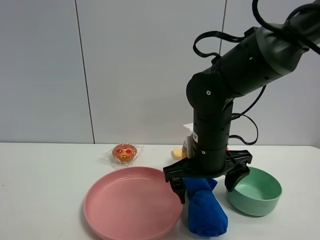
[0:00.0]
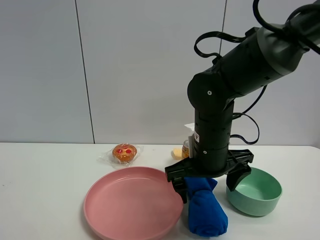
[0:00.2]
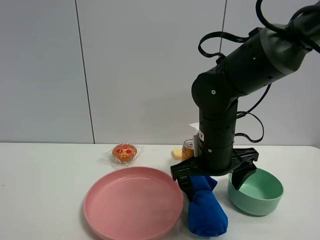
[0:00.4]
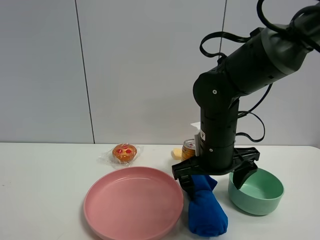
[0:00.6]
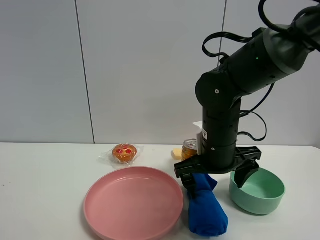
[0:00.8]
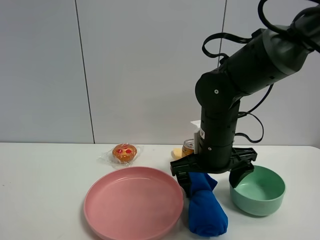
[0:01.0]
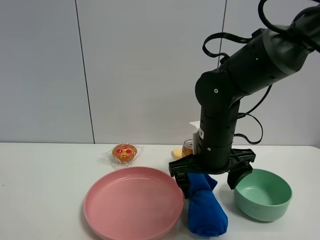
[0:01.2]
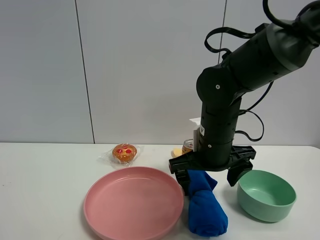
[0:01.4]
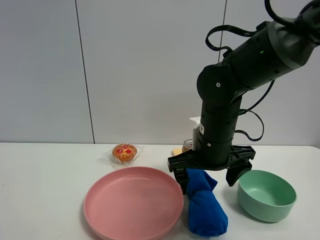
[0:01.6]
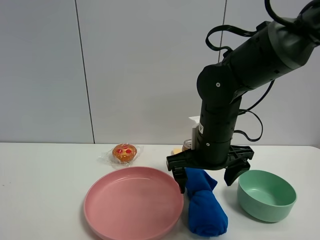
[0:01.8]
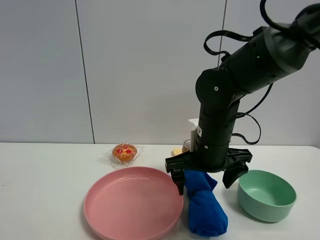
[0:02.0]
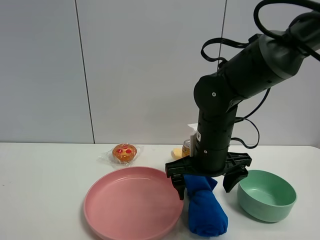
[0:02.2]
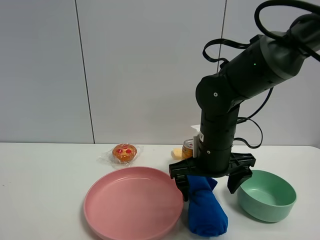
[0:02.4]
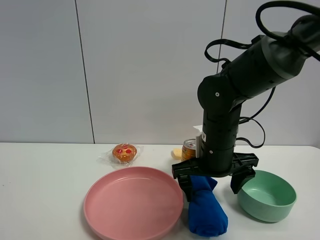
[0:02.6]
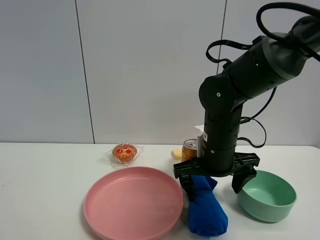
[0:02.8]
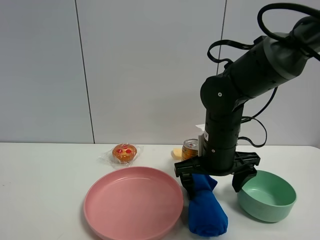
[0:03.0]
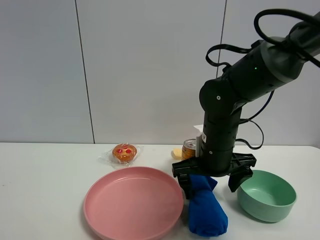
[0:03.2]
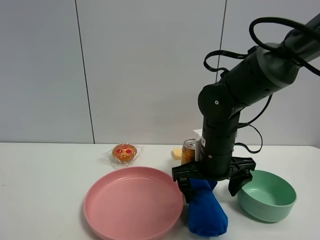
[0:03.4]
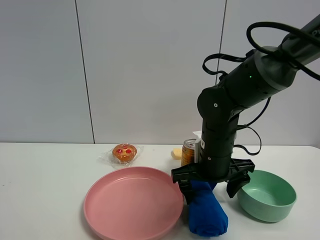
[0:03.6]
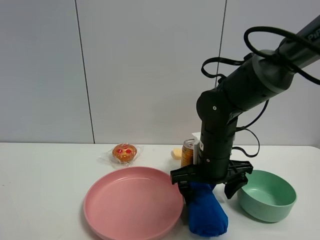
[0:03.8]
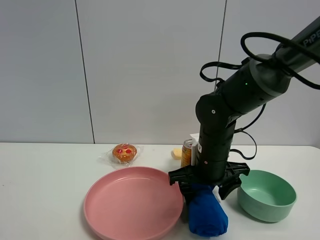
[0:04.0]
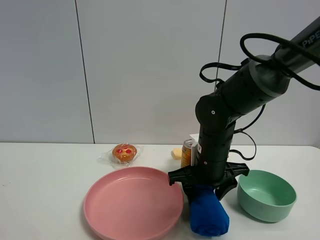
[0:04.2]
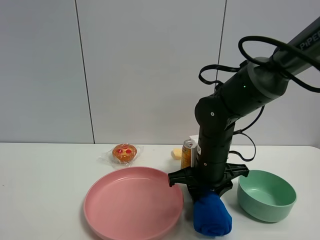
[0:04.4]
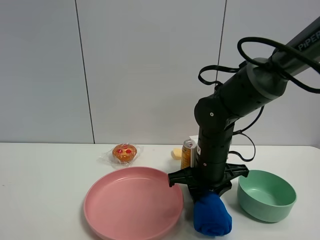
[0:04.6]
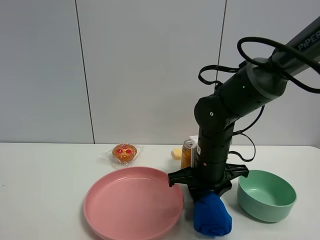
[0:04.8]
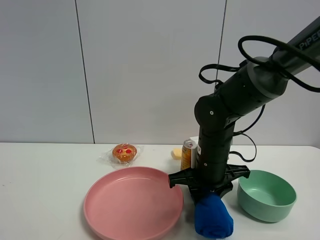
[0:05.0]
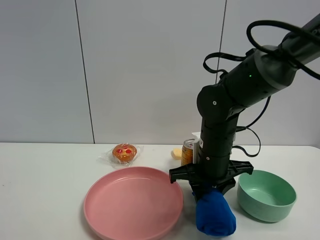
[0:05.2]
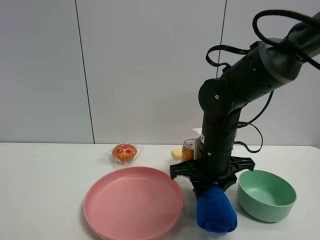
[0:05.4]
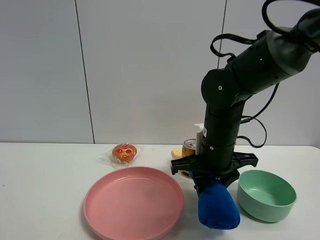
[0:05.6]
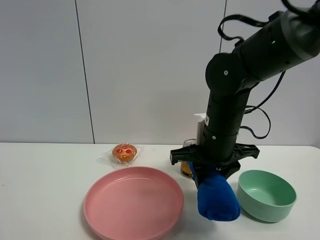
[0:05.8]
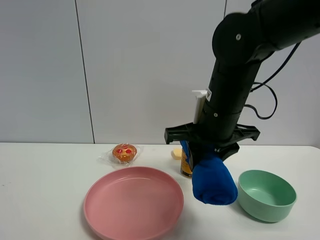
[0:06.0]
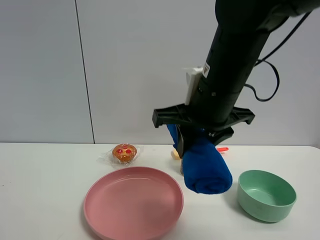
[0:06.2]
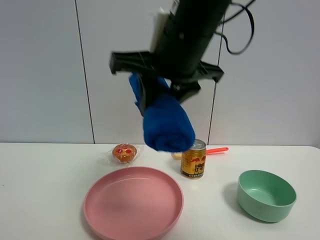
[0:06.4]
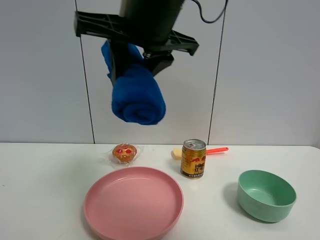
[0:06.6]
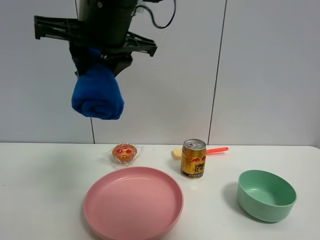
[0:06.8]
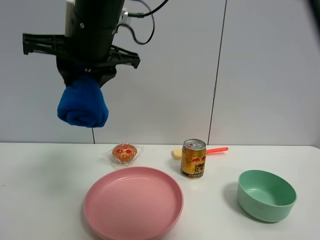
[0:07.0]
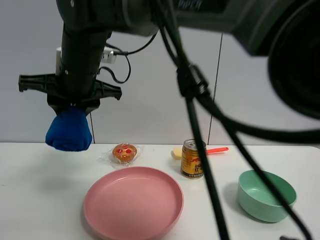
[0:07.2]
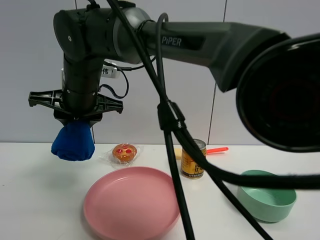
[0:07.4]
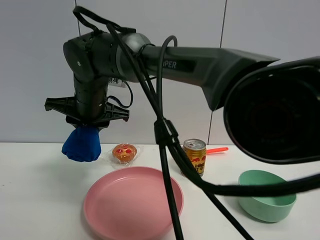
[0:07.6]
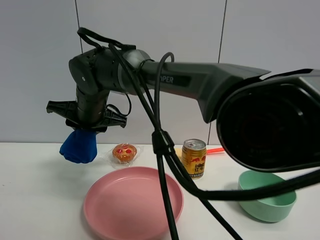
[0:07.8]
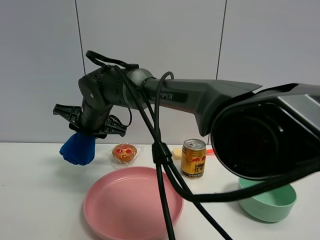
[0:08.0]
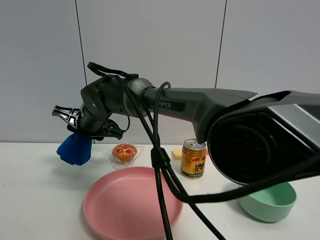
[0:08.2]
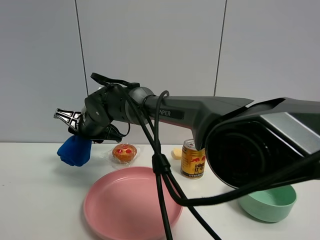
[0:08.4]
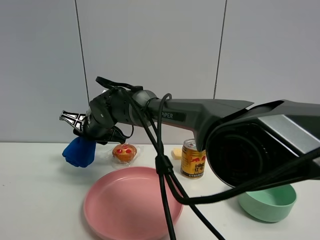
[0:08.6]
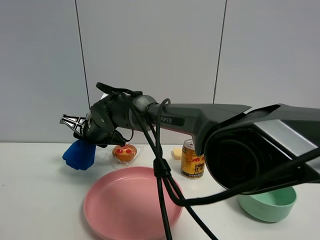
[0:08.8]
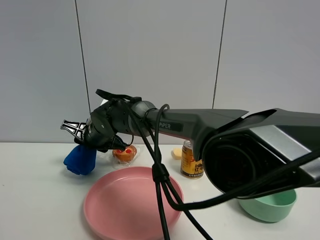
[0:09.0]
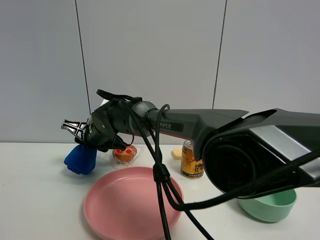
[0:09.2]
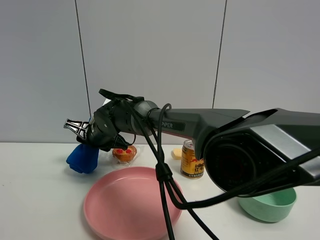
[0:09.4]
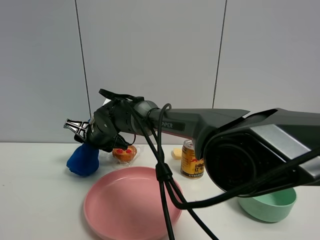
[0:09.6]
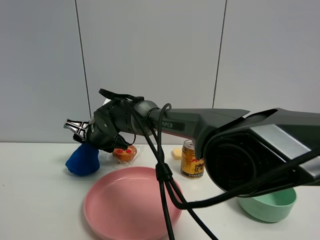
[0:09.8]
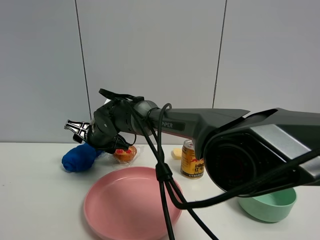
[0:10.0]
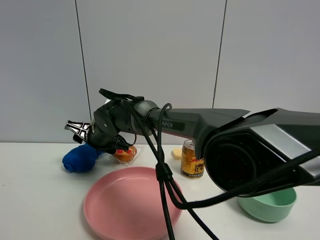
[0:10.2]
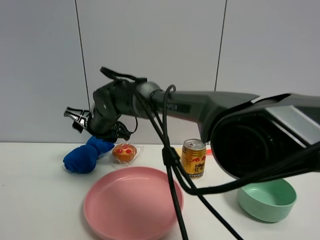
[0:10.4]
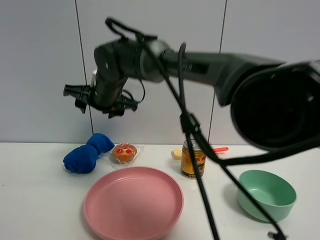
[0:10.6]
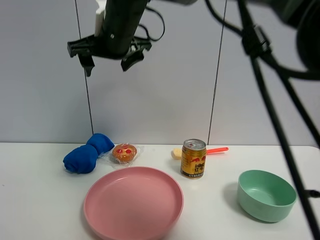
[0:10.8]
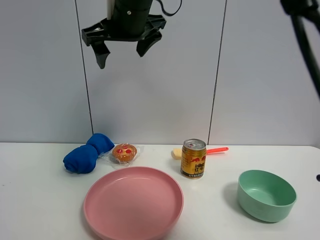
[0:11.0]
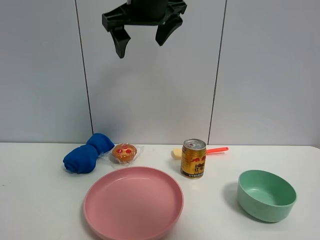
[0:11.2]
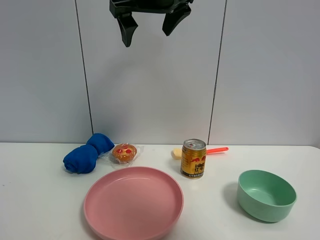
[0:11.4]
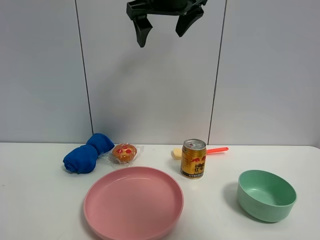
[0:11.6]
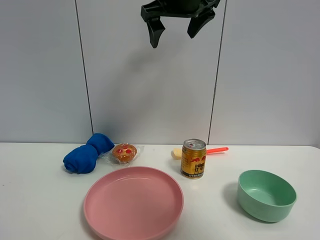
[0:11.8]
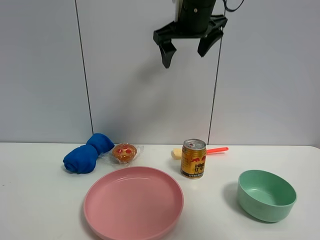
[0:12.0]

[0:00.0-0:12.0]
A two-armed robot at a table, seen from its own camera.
Task of the whole recording: the gripper move the object.
Step, 0.0 to 4.4 s: Grasp the blue towel with the right gripper.
Step, 4.6 to 9.8 s: Place the blue towel on the table with the right gripper.
0.0 to 3.0 s: The grippers stay close to where they were, moving slightly.
3.0 to 4.4 s: The right gripper closes.
4.4 to 6.0 s: The right gripper travels upward by about 10 cm.
6.0 to 7.6 s: The right gripper heads to the left, covering roughly 20 cm.
7.6 to 9.0 s: The right gripper shifts about 10 cm downward.
9.0 to 10.4 s: The right gripper goes approximately 5 cm upward, and opens up.
10.4 to 12.0 s: The right gripper shifts about 25 cm upward and to the right, and opens its fingers.

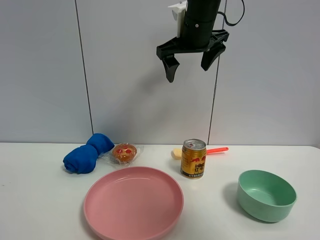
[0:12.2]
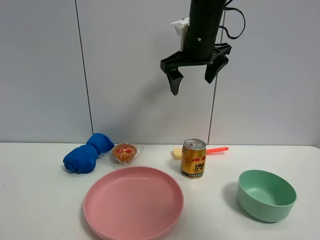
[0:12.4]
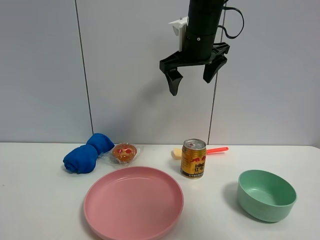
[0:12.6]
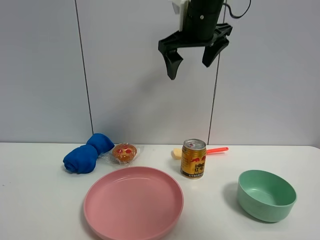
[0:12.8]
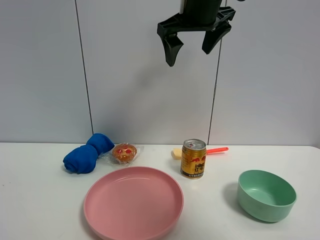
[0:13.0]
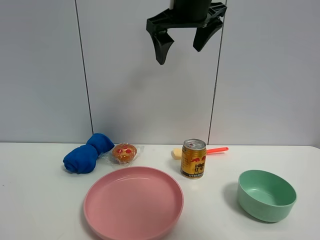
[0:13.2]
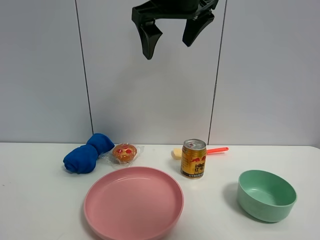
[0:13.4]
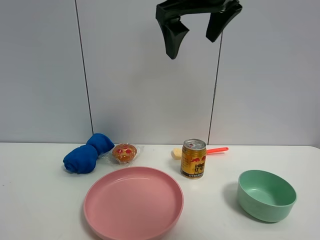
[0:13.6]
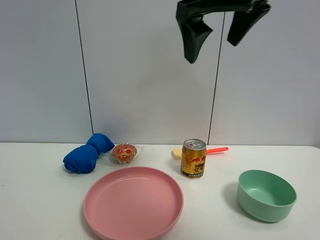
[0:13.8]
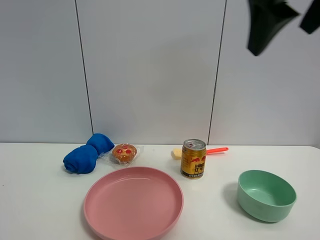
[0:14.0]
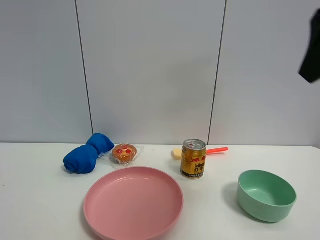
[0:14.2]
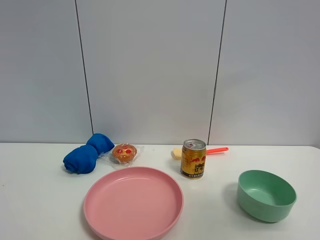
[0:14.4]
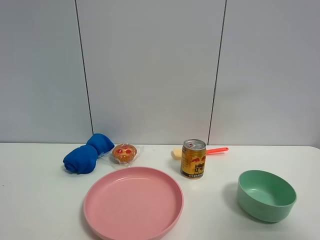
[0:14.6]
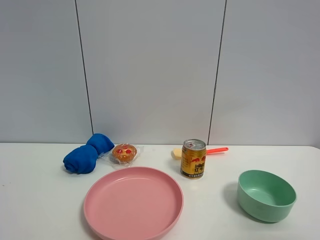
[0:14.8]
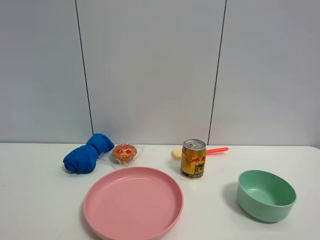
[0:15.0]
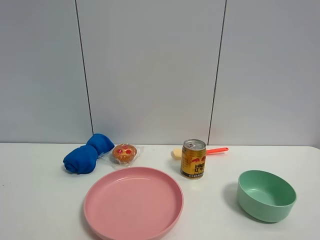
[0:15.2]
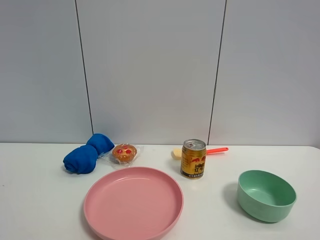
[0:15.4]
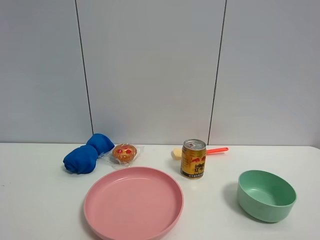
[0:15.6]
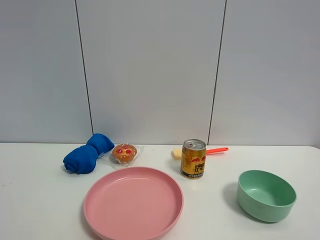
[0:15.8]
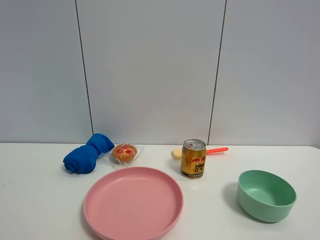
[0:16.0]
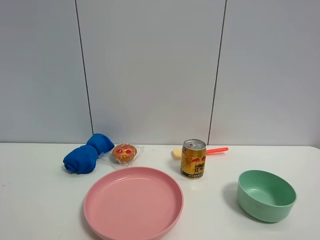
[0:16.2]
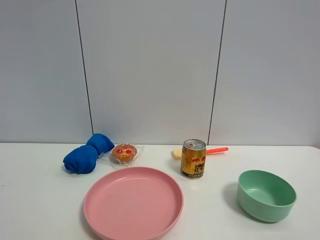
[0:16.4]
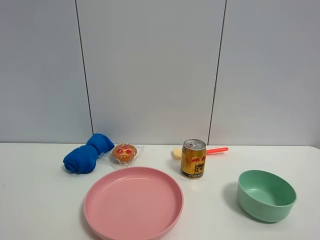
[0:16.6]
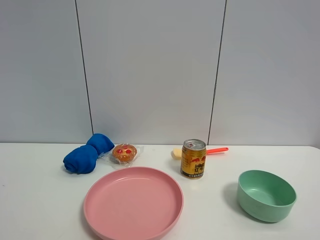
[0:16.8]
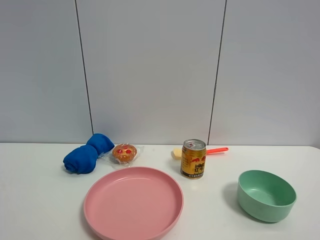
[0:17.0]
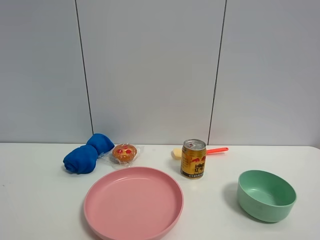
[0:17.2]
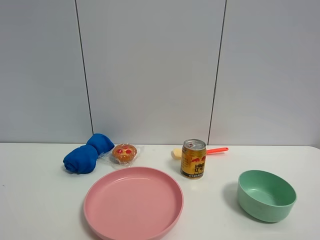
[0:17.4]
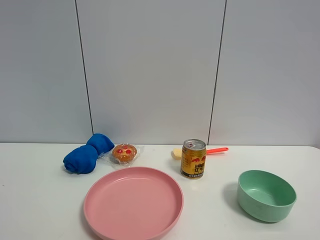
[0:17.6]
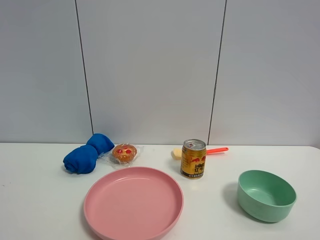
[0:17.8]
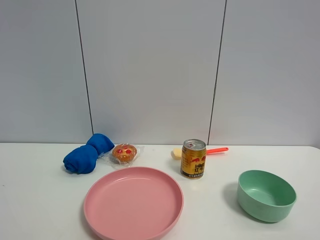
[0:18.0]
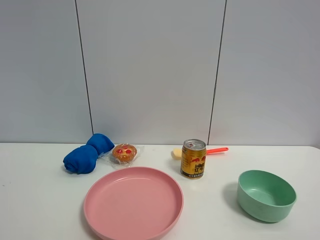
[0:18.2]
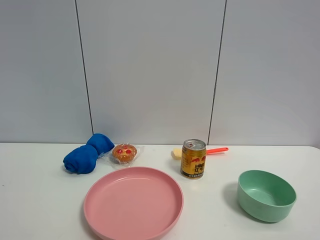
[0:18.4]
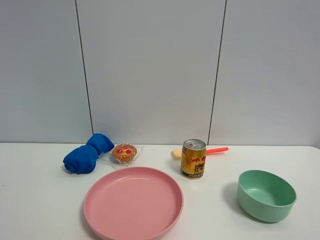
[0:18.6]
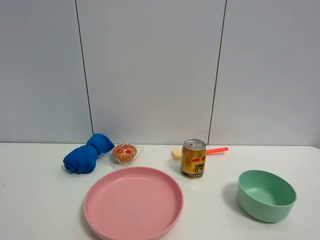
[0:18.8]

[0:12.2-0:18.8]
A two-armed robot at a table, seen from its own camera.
Task of the whole recording: the gripper move the object.
12.2 to 13.8 s: The right gripper goes some 15 cm backward and upward.
13.8 to 15.4 s: The right gripper travels backward, to the right and downward by some 35 cm.

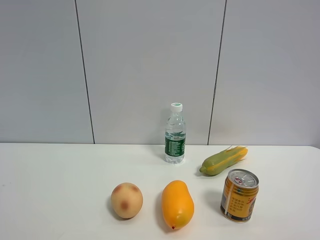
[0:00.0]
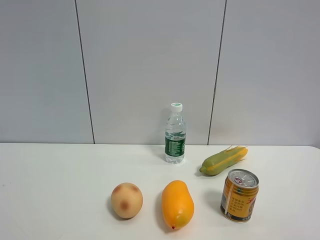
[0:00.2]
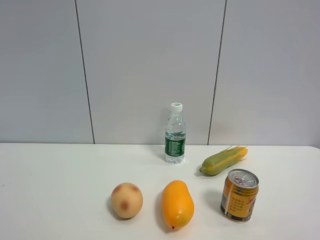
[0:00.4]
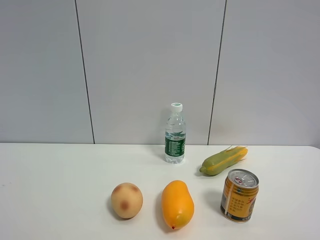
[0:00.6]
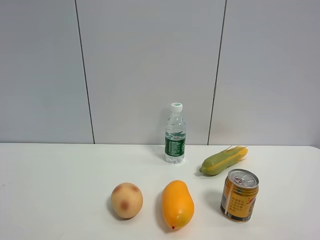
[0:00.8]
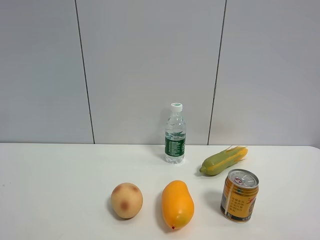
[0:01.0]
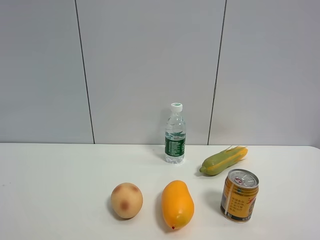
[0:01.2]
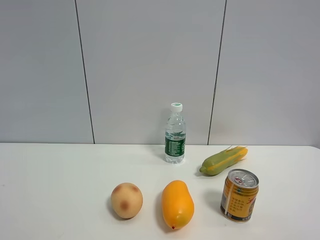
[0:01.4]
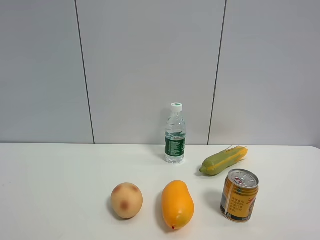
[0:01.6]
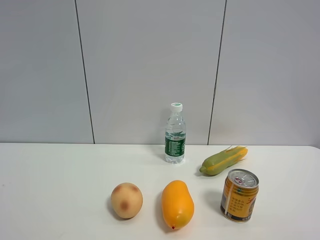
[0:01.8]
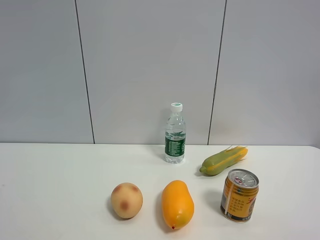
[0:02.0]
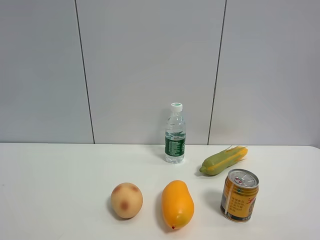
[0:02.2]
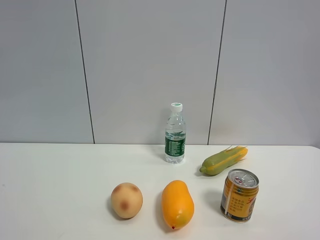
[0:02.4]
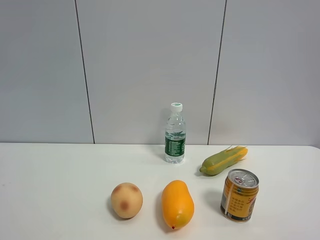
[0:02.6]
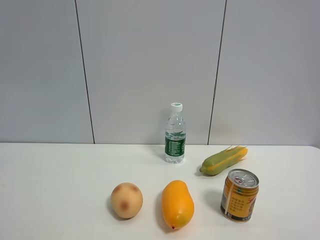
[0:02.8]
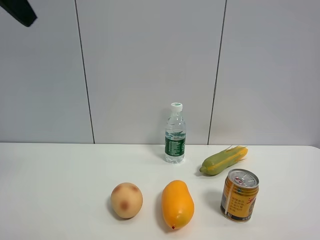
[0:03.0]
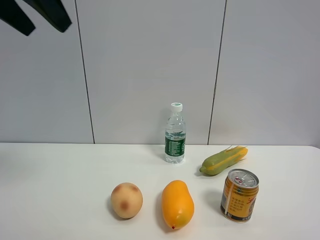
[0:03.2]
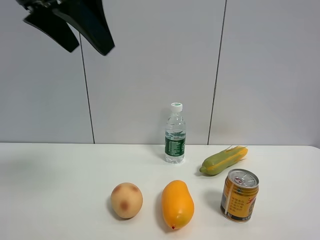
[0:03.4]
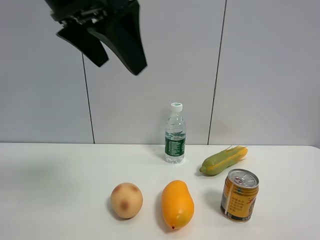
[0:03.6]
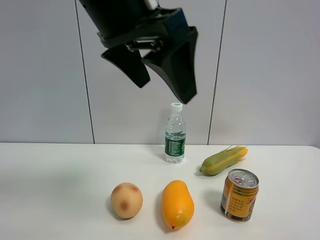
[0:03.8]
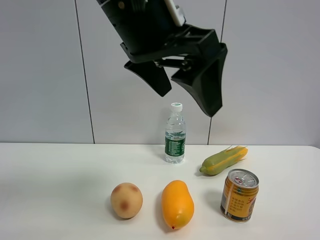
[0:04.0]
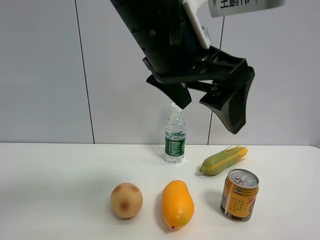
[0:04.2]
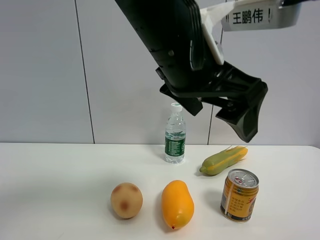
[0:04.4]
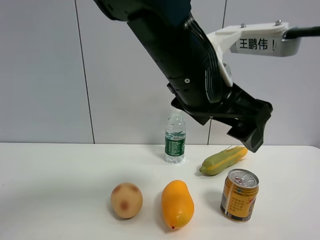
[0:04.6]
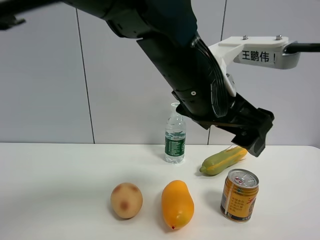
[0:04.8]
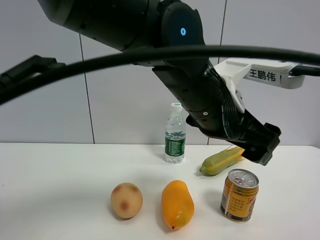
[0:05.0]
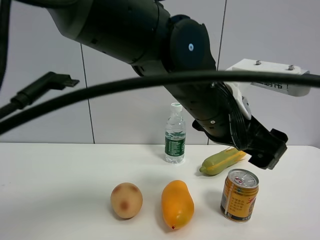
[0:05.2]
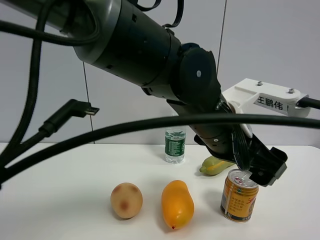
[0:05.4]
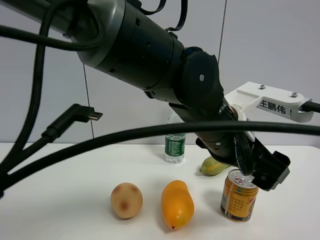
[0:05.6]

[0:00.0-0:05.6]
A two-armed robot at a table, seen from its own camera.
Task of the whole recording: the gripper move the object.
2.8 to 4.2 s: The left gripper heads to the right, covering roughly 30 cm.
4.2 to 5.6 s: The left gripper moves downward and to the right, some 15 cm.
